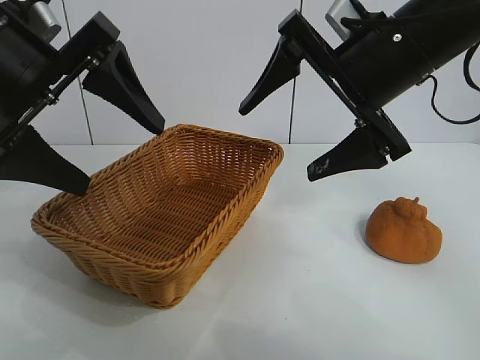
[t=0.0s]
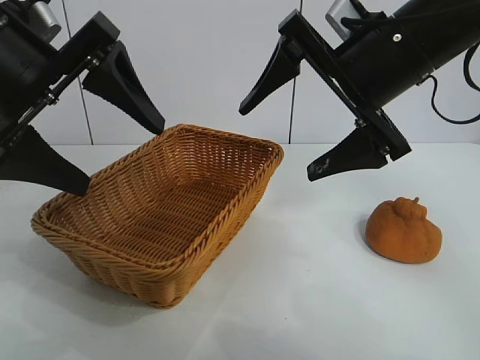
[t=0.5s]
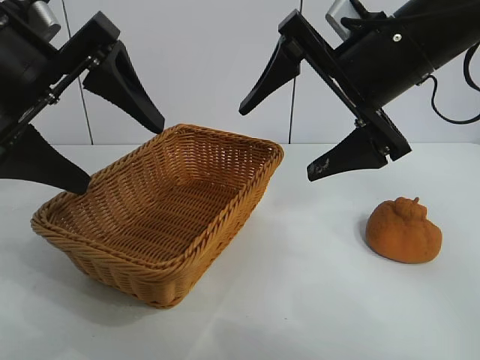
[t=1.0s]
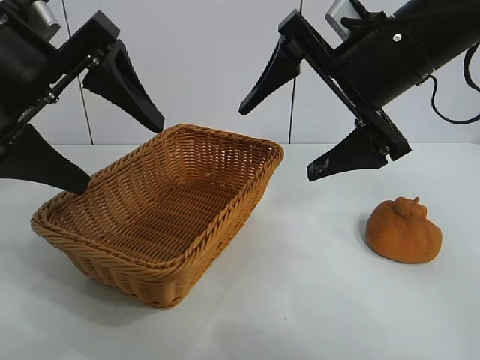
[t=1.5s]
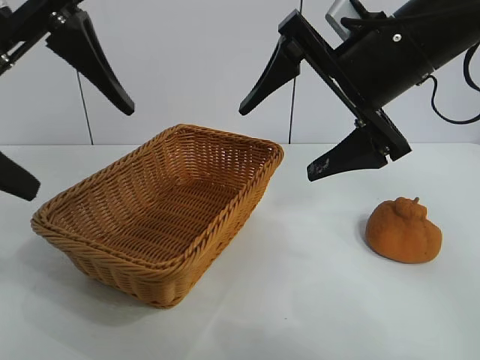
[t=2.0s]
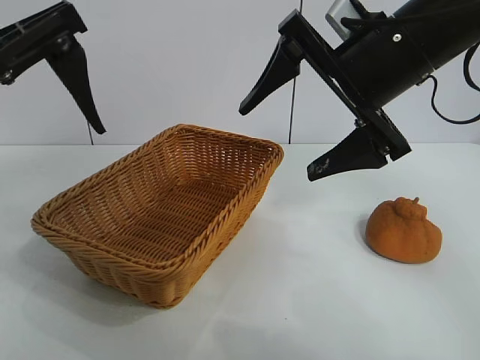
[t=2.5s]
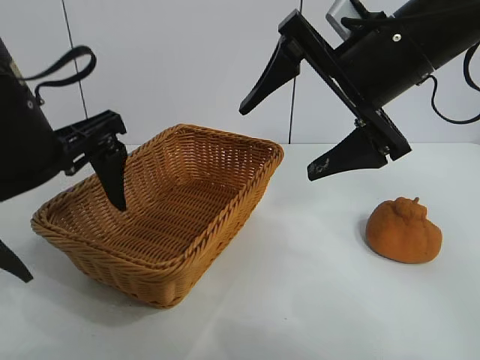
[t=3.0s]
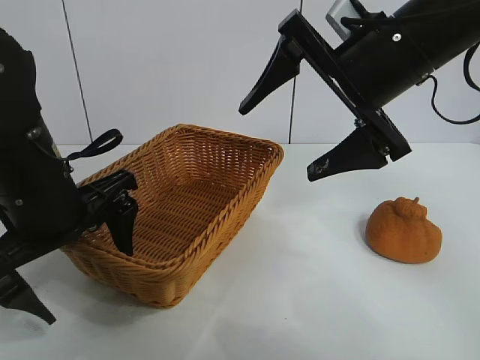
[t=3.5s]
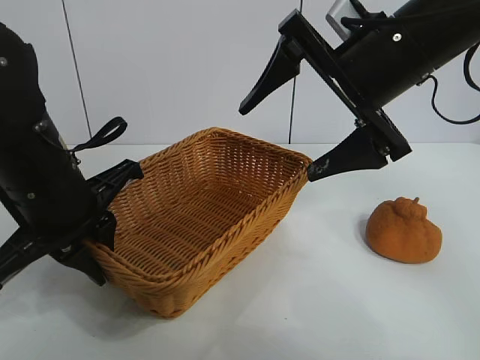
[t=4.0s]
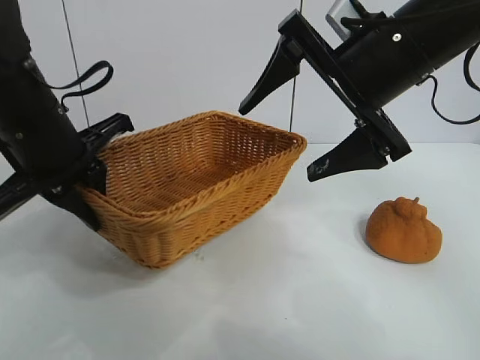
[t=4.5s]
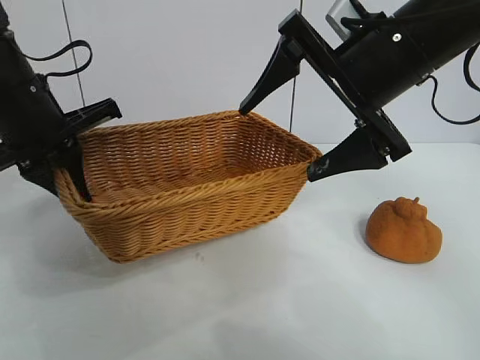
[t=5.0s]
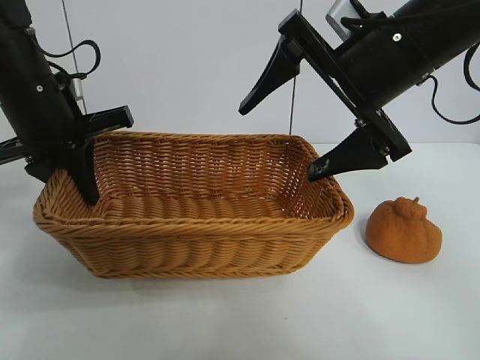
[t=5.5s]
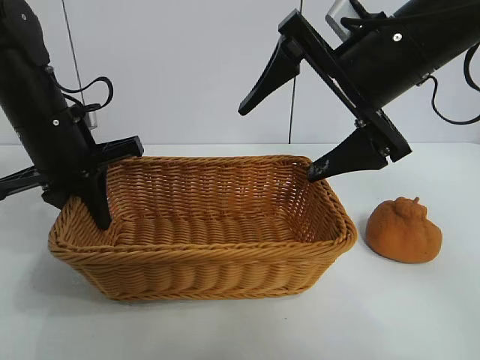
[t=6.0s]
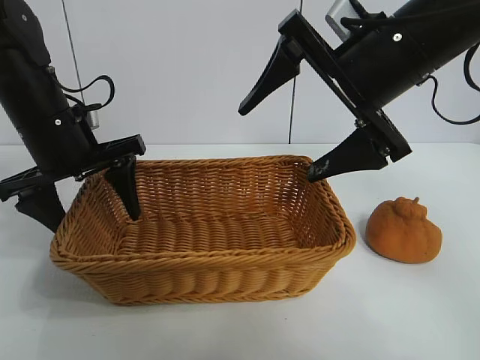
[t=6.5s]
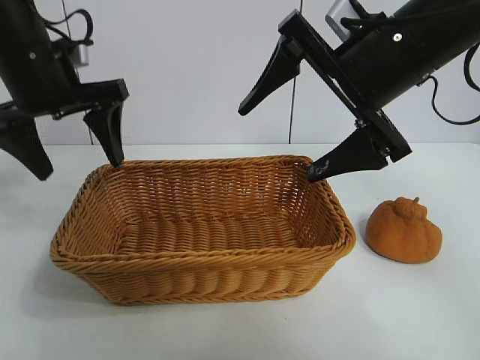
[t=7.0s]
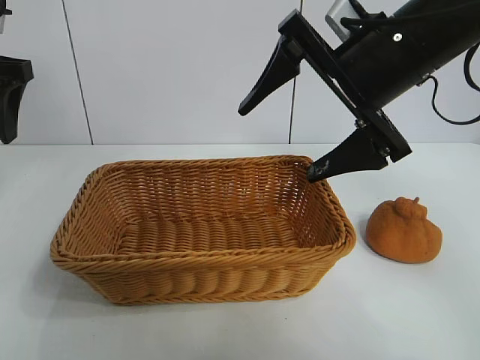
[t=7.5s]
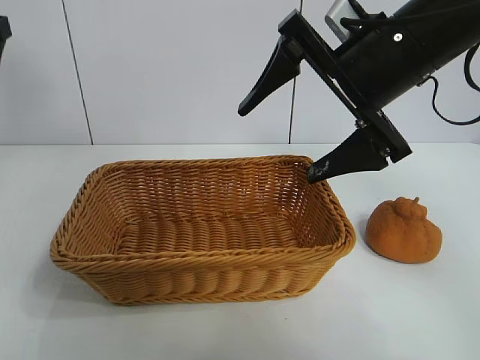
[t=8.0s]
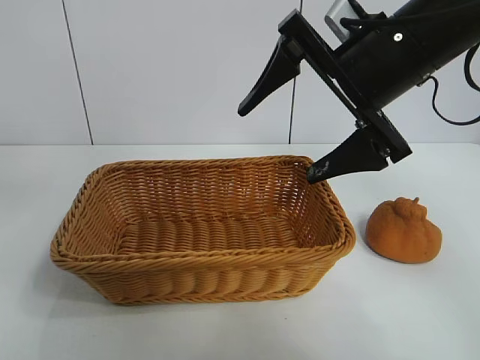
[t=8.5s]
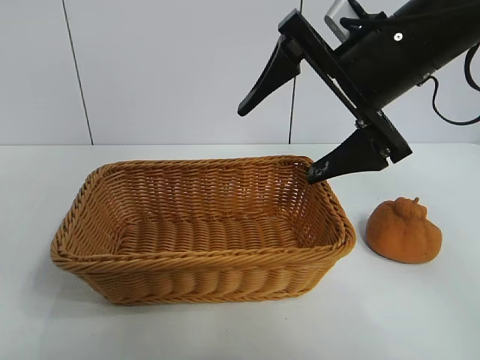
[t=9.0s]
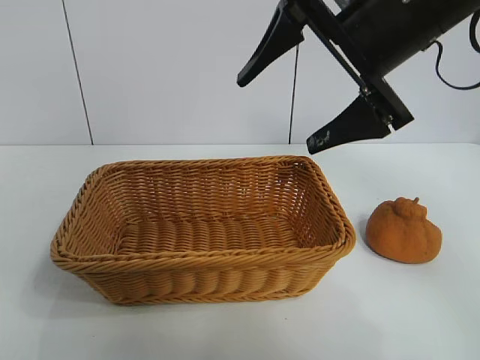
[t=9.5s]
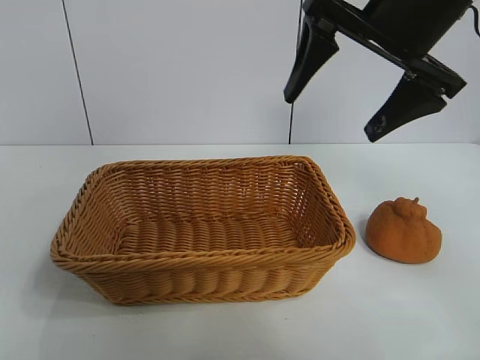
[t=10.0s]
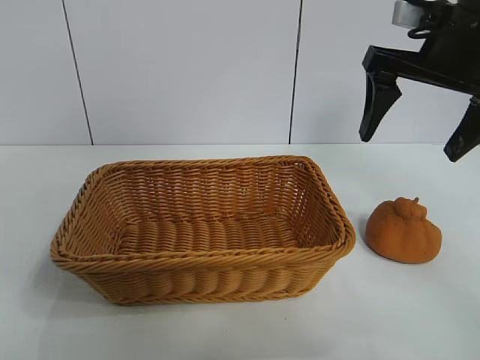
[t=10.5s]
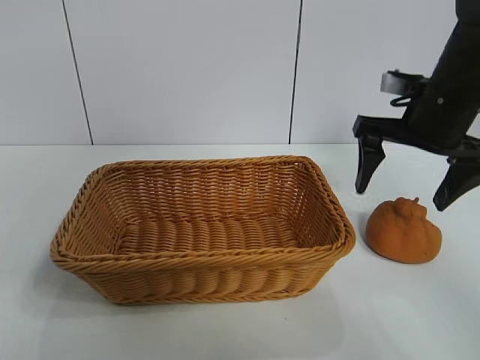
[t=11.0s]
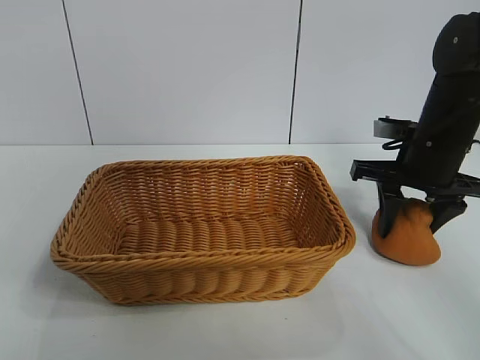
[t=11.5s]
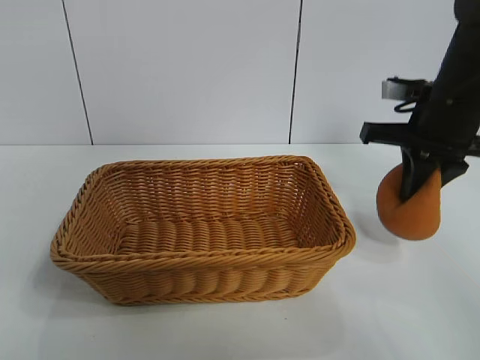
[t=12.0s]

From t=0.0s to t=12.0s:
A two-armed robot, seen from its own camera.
Task of the whole recording: pick up the orange and put it into the basket.
Step, from t=1.5s to t=3.5s: Grasp the basket with left gripper.
Step, from t=4.0s to t=6.5s: Place the basket in the center of view with left gripper.
Step, from t=7.0s to t=11.5s: Grasp the orange with right gripper.

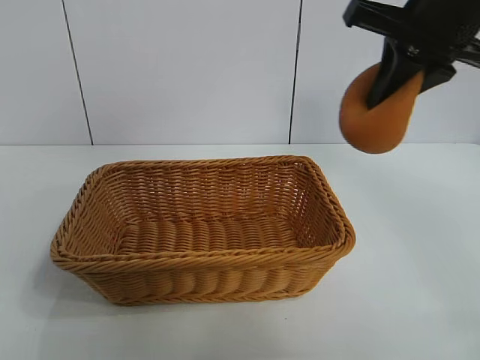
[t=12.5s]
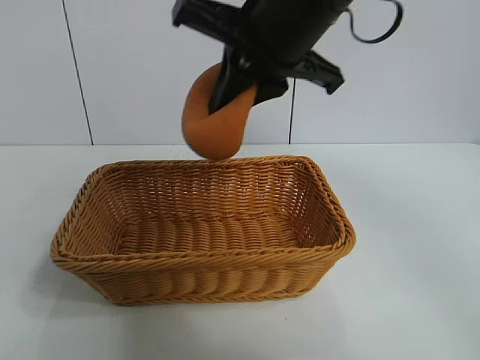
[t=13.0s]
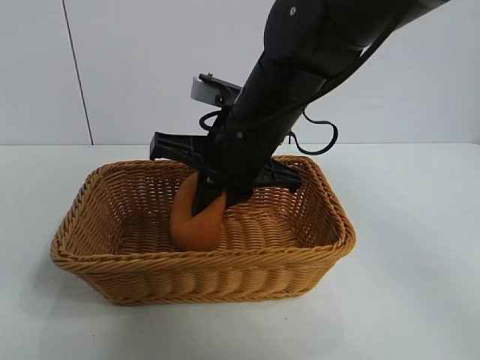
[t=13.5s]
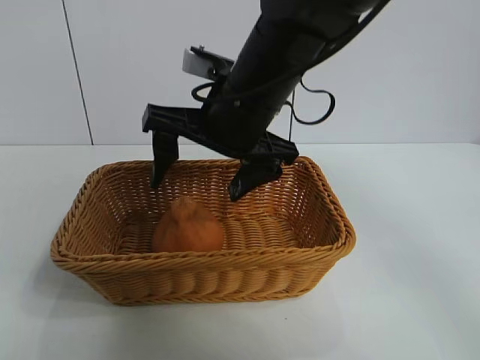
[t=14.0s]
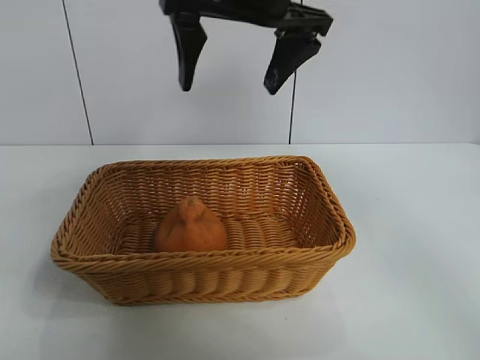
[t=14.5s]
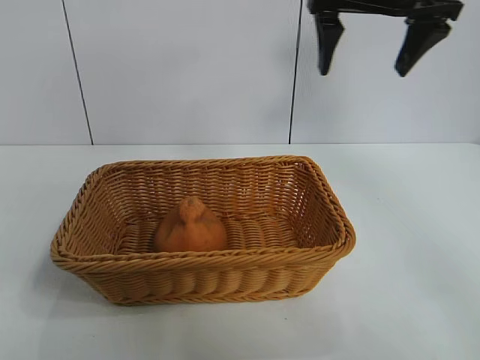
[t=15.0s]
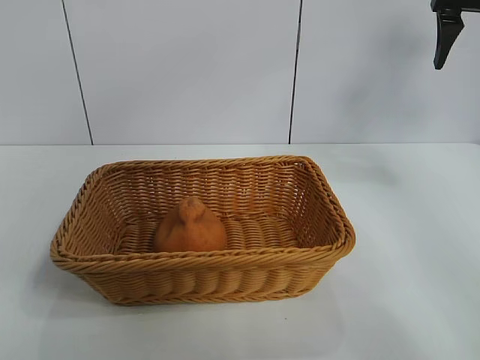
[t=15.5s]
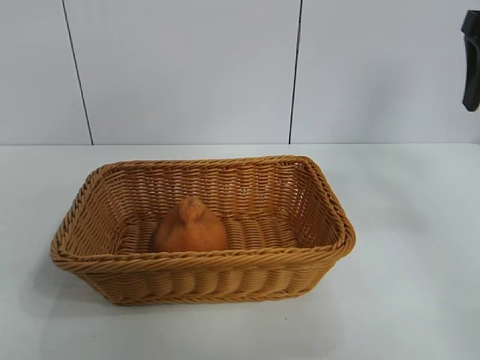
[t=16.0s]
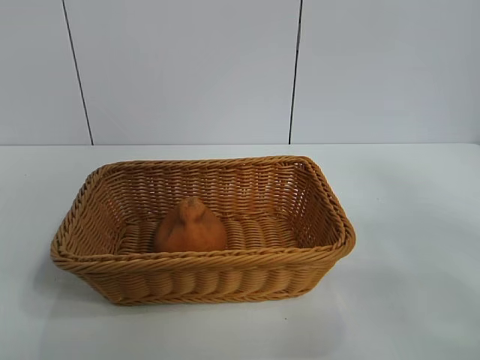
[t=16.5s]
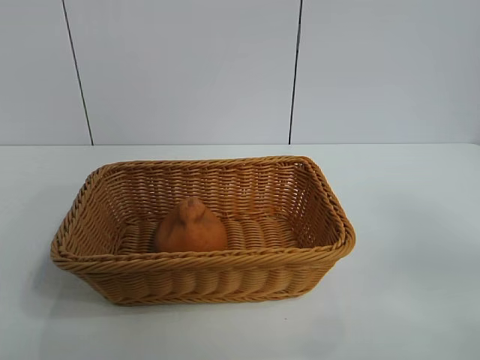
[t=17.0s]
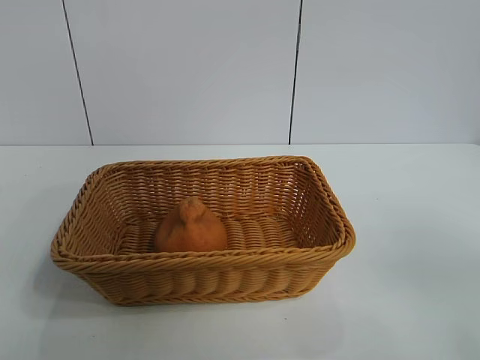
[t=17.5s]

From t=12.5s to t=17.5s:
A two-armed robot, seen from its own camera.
Task of the whole recording: pick up the orange and put it into the basket.
Step, from t=12.5s to t=13.5s: Place the orange in the basket with right gripper.
